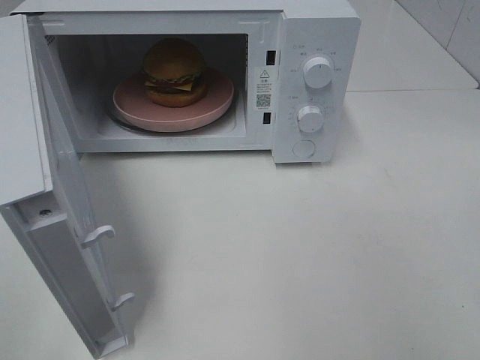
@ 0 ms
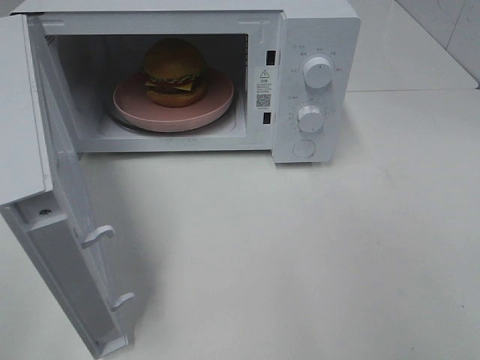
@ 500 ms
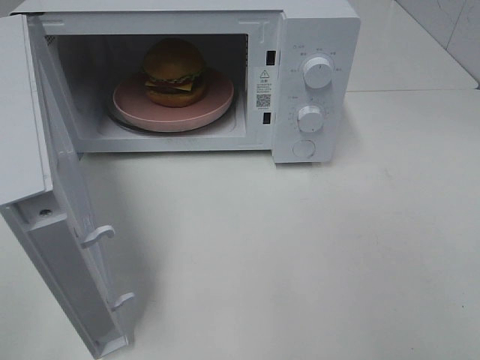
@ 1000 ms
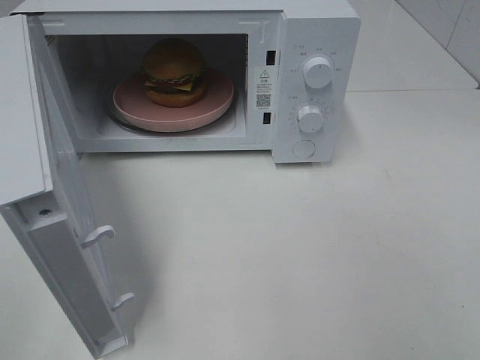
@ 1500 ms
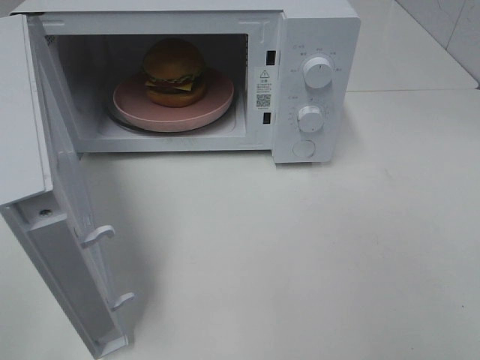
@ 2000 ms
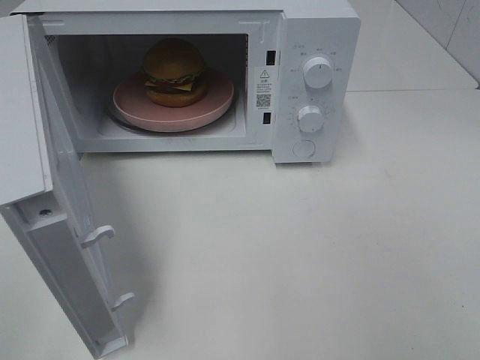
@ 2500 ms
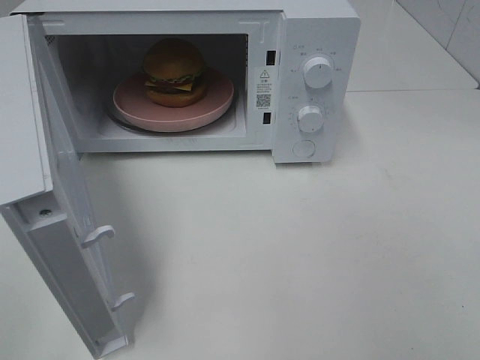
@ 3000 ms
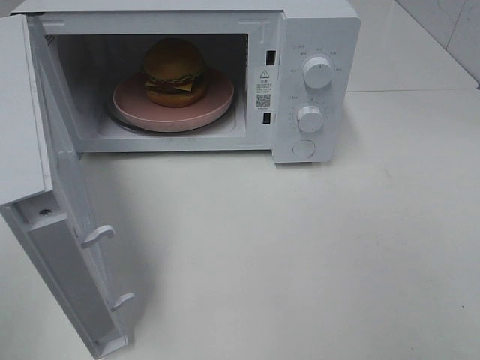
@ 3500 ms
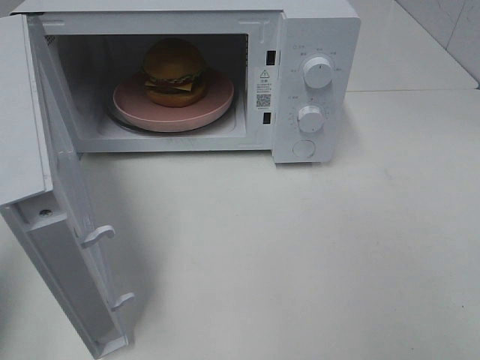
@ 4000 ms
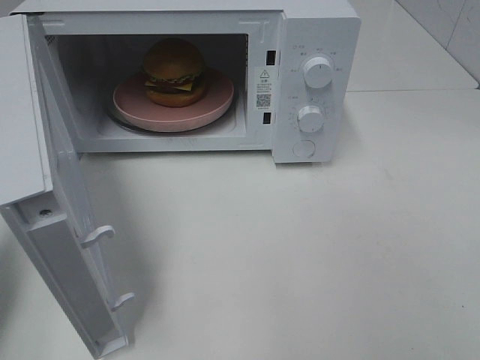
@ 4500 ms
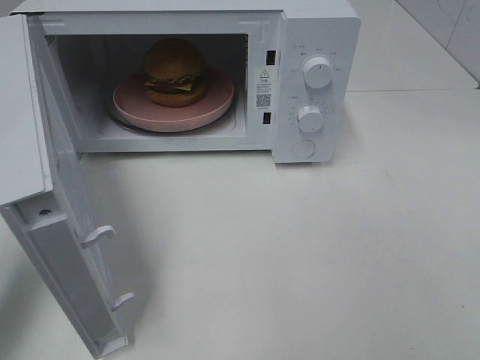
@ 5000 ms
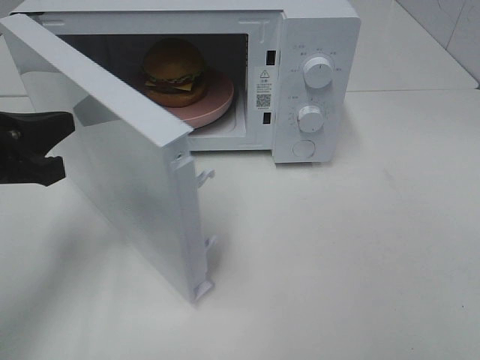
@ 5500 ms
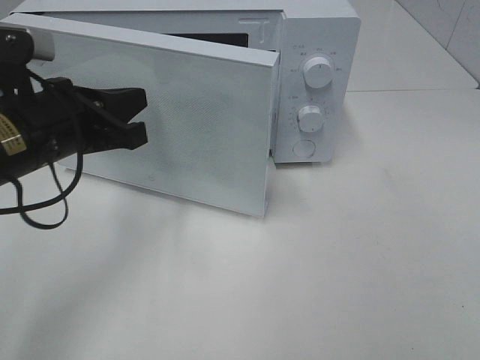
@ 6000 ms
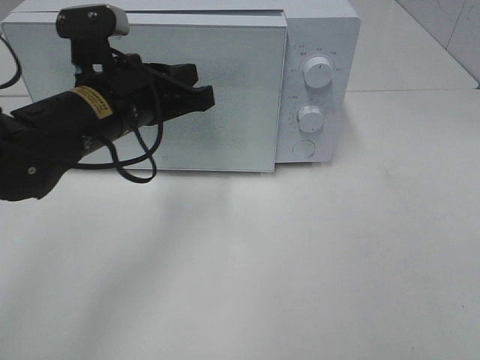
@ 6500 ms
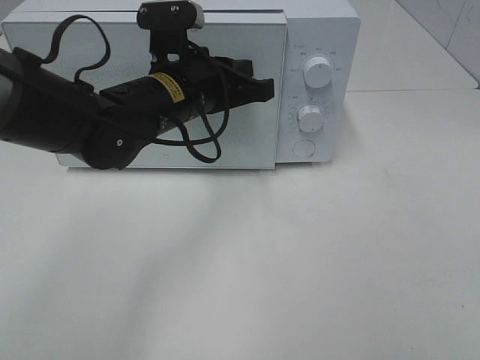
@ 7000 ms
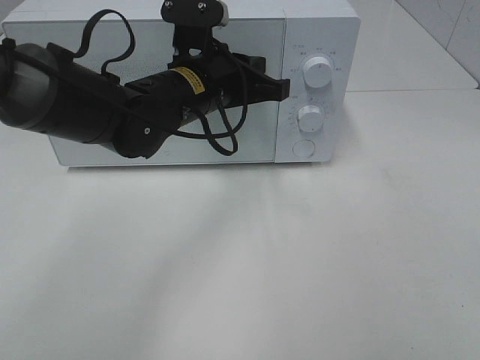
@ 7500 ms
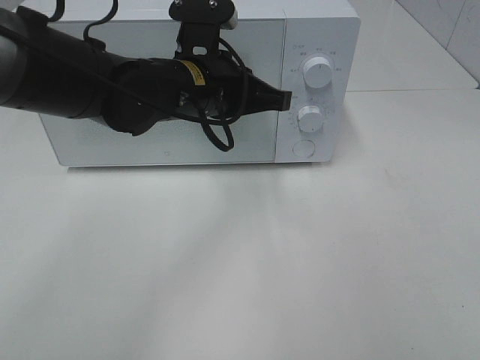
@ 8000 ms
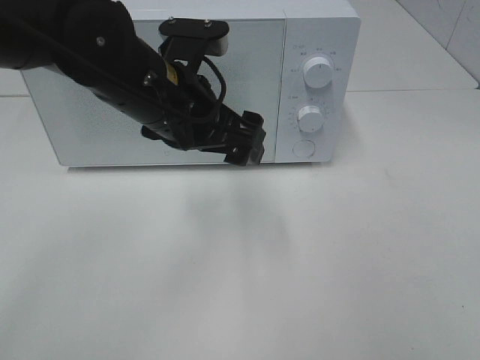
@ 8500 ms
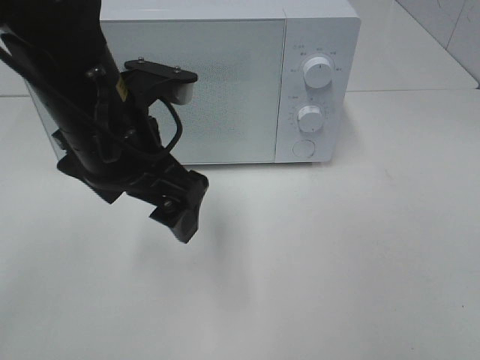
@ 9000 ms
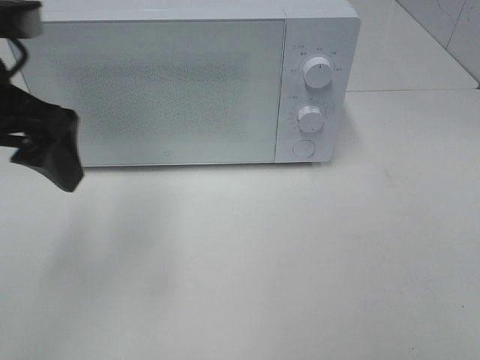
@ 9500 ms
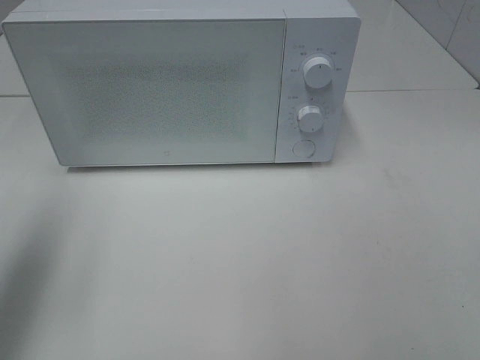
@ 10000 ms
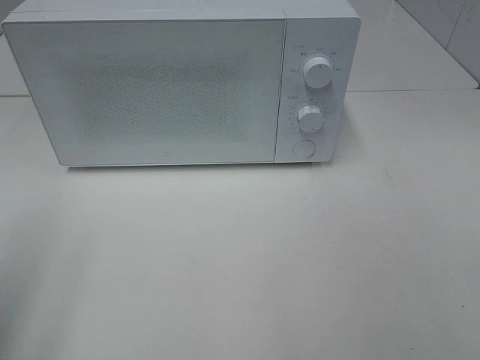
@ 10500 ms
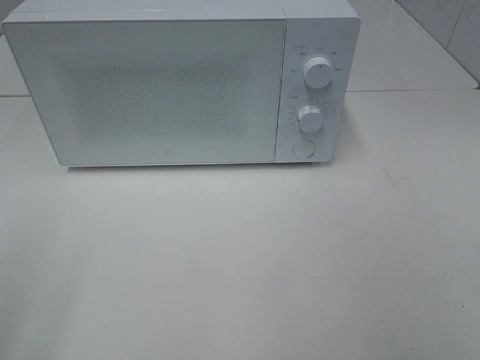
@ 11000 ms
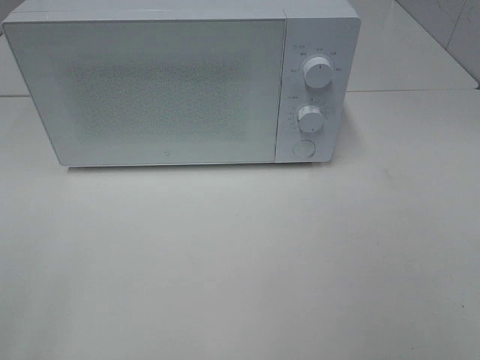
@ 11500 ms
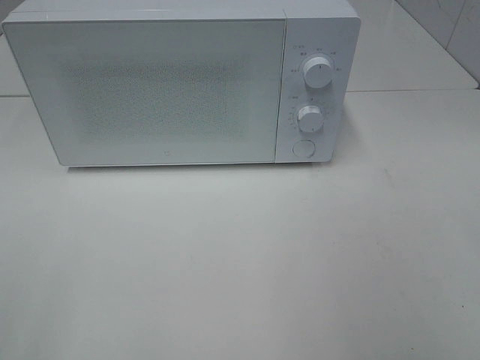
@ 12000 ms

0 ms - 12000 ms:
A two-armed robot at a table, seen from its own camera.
Task of the whole recording: Heat the burger.
Step, 0 ms - 7500 ms: Left hand: close the microwave door.
2000 ms - 4000 ms: The left gripper moves forward, about 15 cm, and closes its fingers.
4000 ms - 6000 ms: The left gripper goes some 20 cm to the right, forward and downward.
6000 ms - 8000 ms: The left gripper moves to the right and forward, roughly 15 cm.
8000 ms - 10000 ms: The left gripper heads to the left, backward and upward, covering approximately 30 cm, and opens up.
10000 ms - 12000 ms: The left gripper is displaced backward by some 20 cm.

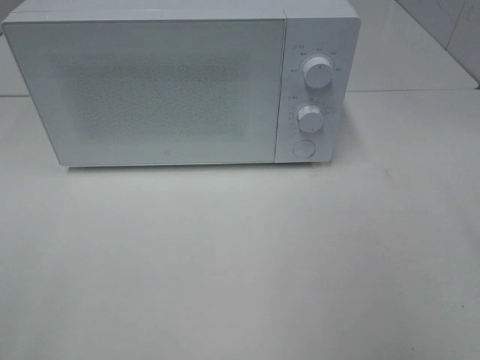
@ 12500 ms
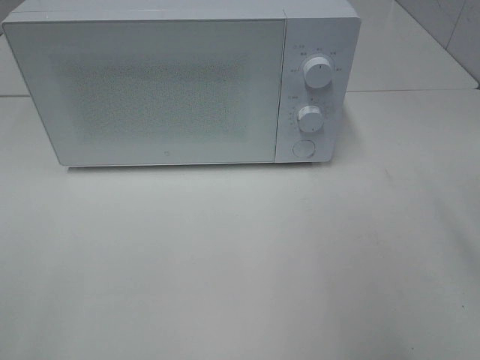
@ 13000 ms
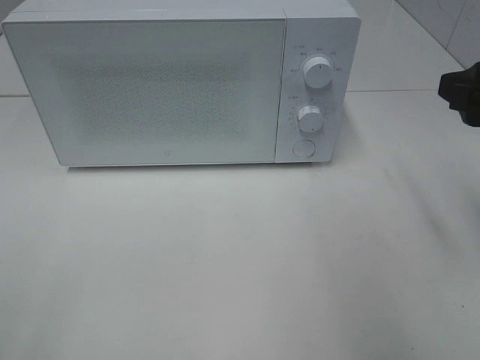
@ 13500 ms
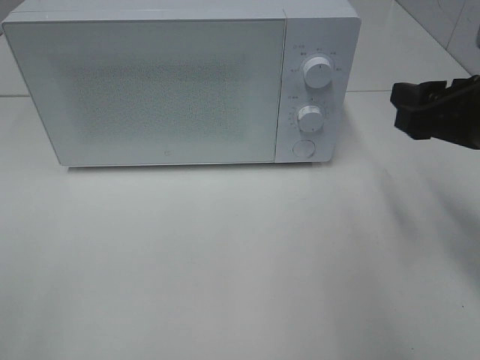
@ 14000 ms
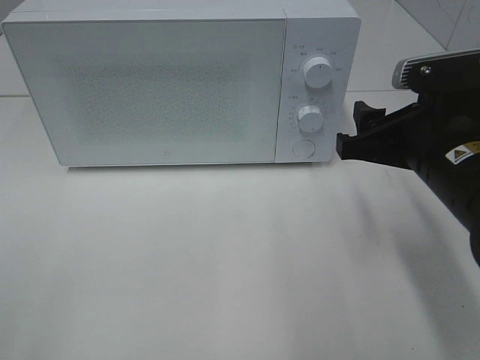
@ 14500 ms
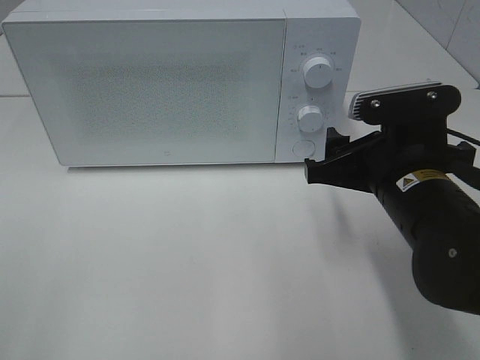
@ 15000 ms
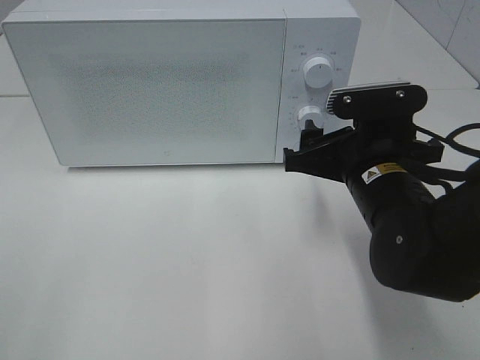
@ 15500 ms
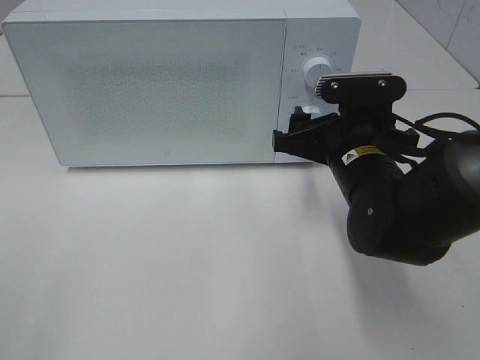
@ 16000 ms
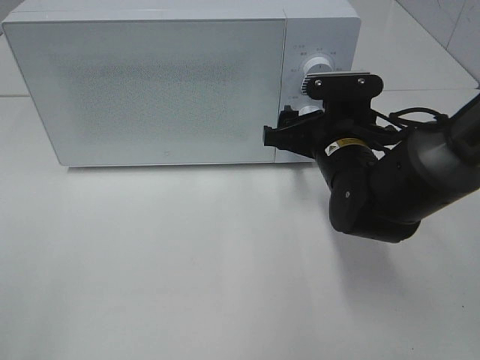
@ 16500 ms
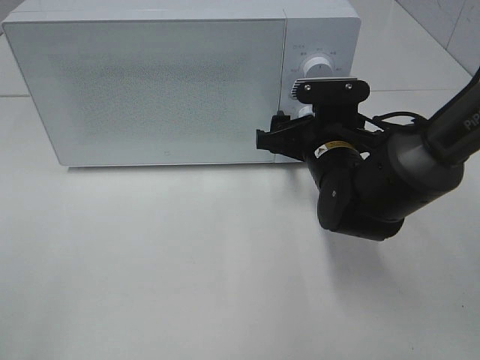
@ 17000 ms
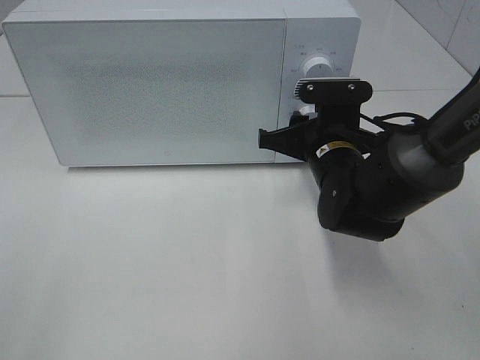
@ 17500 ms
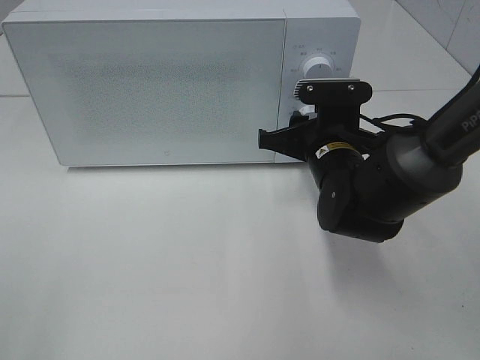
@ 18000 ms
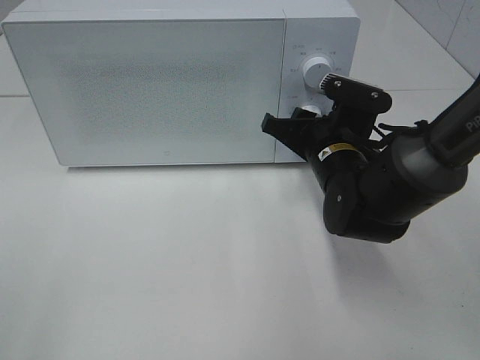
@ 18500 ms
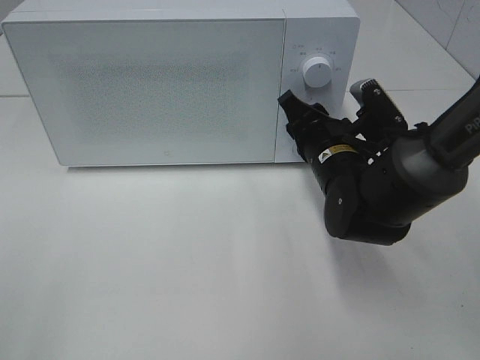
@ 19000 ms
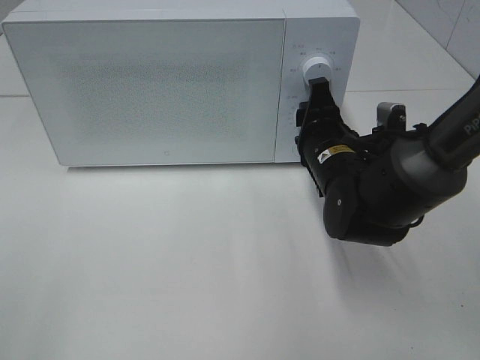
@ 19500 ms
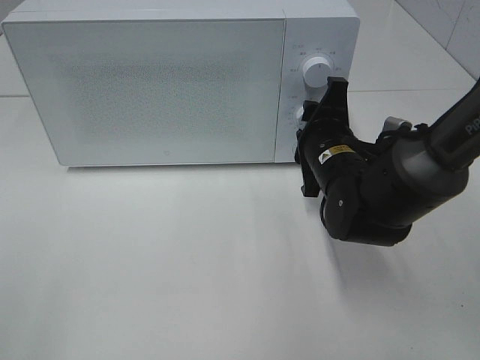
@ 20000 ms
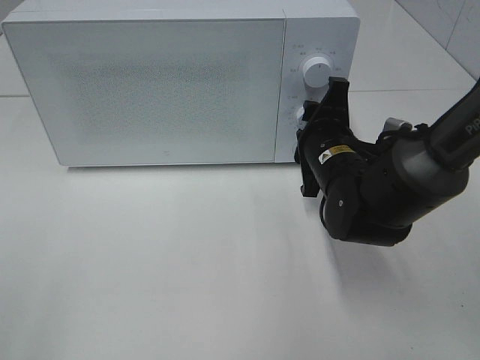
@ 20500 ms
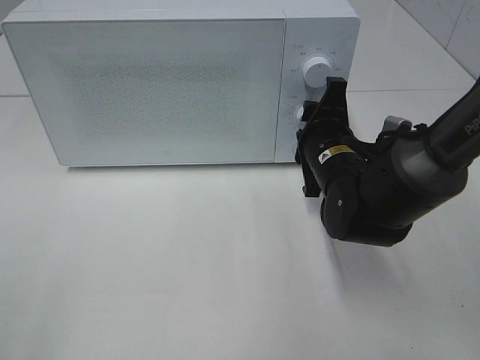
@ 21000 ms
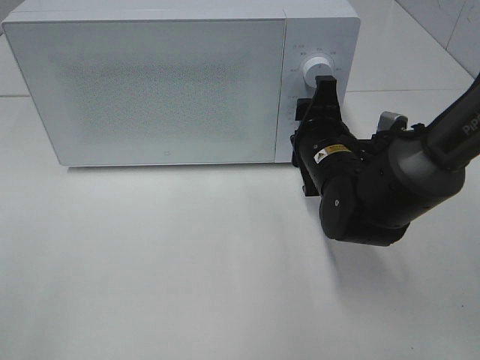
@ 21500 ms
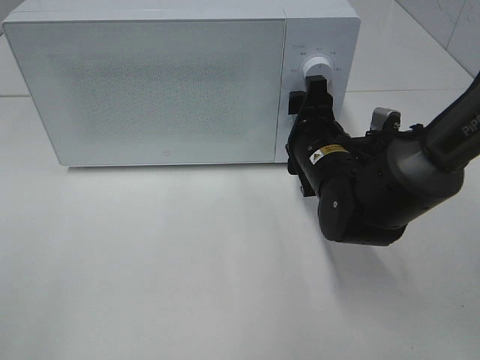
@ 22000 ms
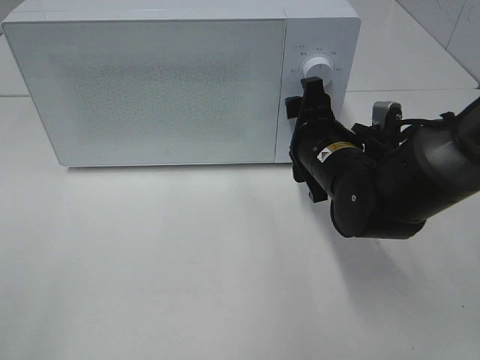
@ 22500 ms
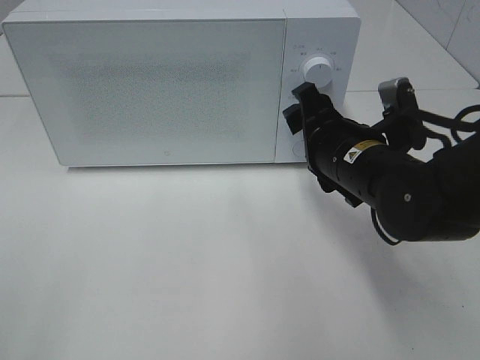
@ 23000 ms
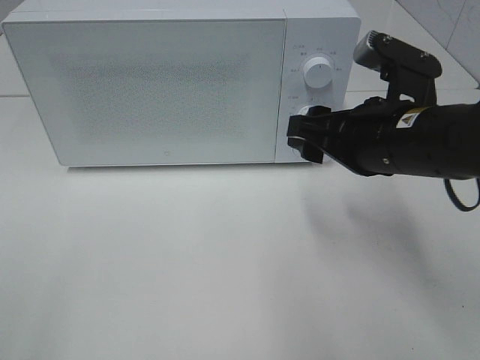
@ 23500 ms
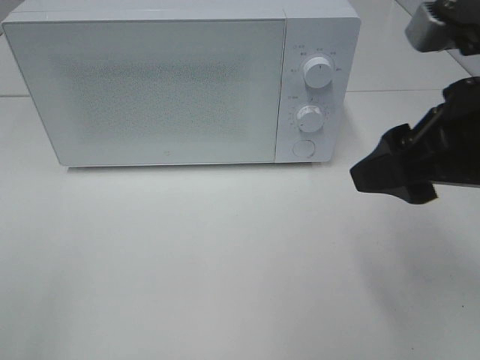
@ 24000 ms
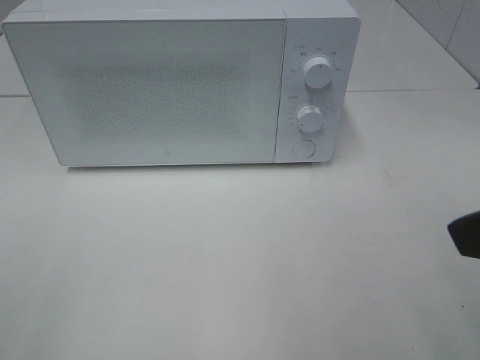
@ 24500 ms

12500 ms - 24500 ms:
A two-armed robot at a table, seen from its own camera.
Task of the whole recording: Heat the burger.
Step, 12500 ms - 22000 ms: Right hand: twist timer button.
12500 ms - 14500 ms: The right gripper goes some 20 cm downward, forward and to the left.
14500 ms - 16500 ms: The right gripper goes about 15 cm forward, downward and to the left.
16500 ms - 18500 ms: The right gripper closes its fingers.
20500 ms - 22500 ms: The grippers move only a little.
22500 ms - 24500 ms: The right gripper travels backward, upward and to the right by roughly 30 cm.

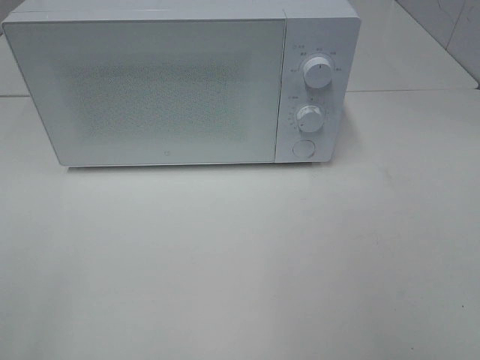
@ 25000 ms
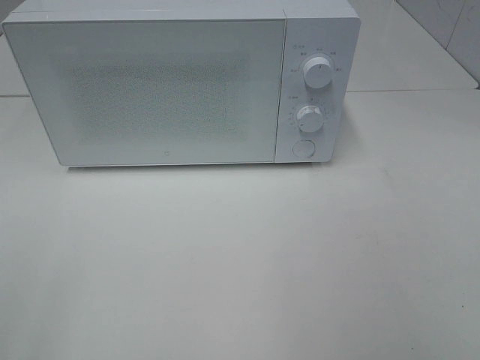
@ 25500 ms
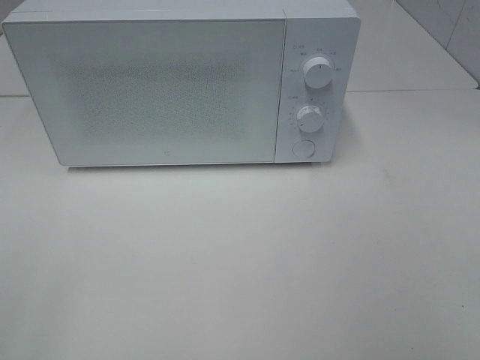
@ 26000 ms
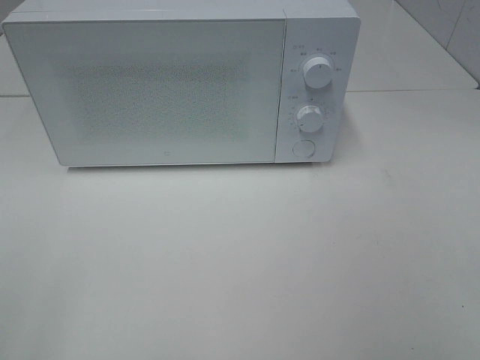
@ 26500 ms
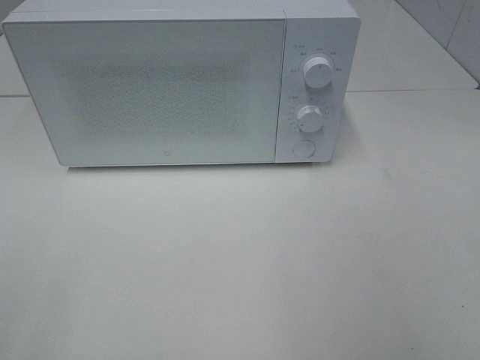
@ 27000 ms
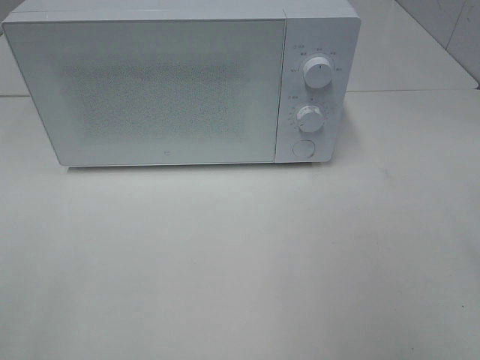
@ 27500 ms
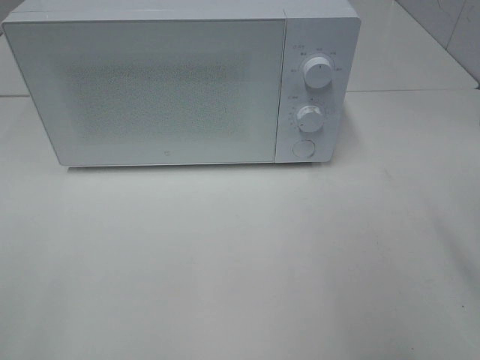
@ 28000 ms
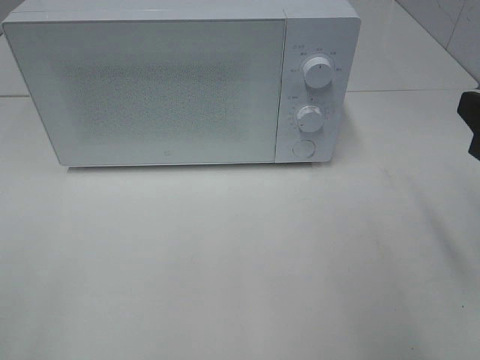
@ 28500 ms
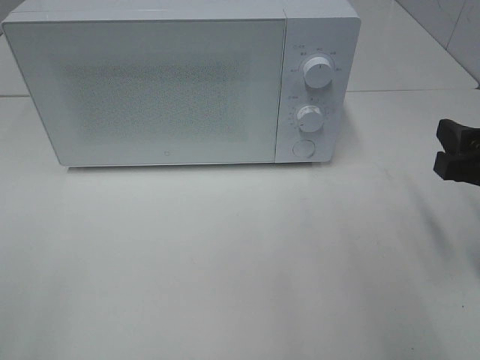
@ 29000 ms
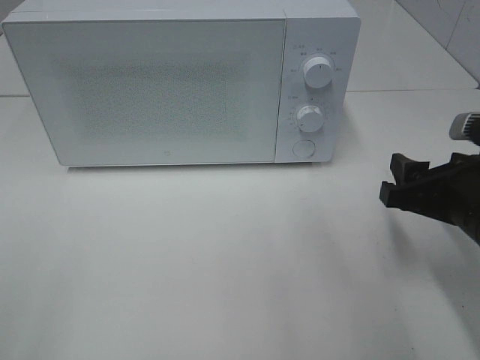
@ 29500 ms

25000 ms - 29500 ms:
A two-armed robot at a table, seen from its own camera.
Task of the whole recording: Heat the burger.
27000 ms - 29500 ms: The right gripper moves downward and forward, some 25 cm.
